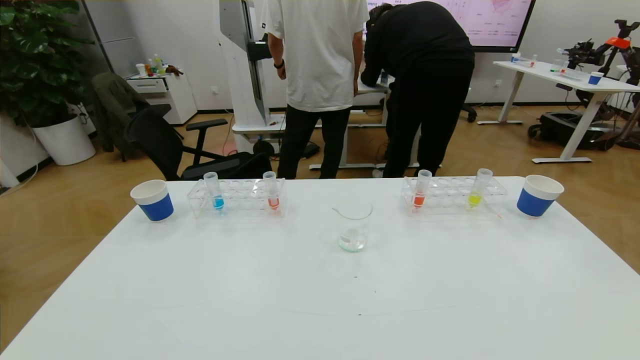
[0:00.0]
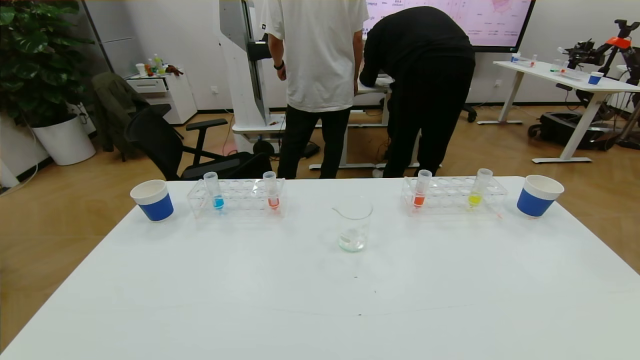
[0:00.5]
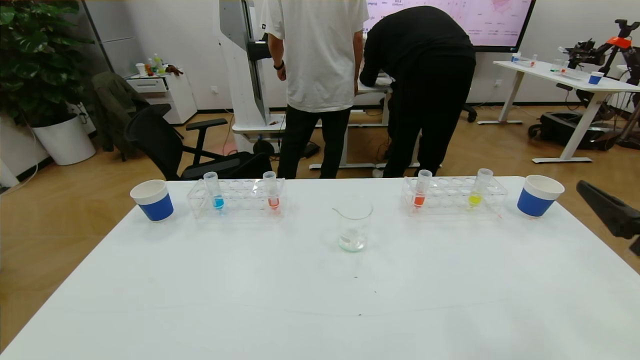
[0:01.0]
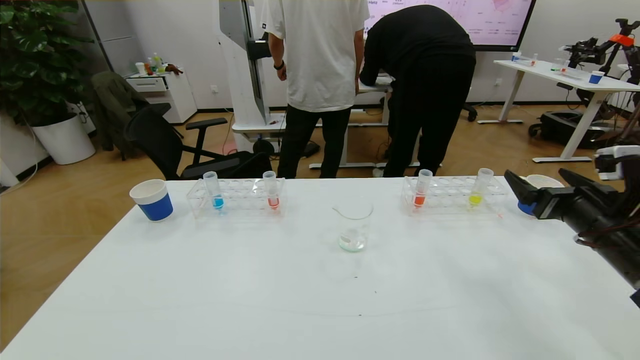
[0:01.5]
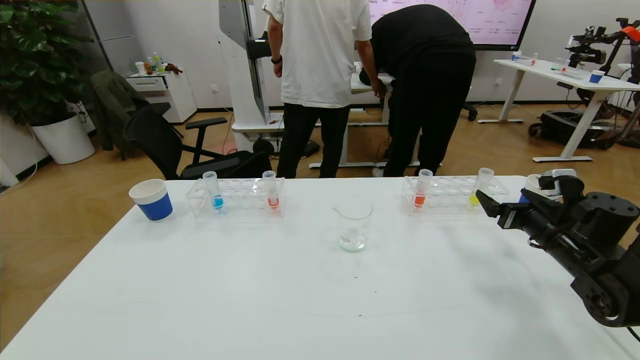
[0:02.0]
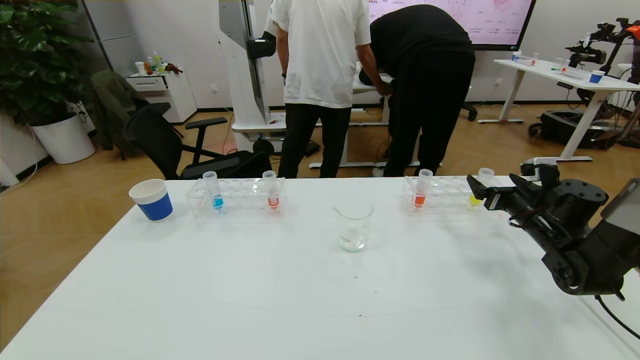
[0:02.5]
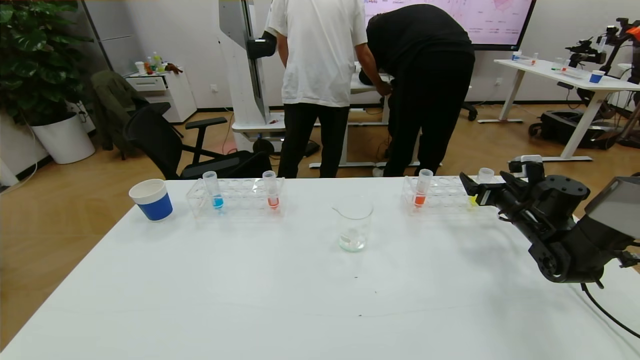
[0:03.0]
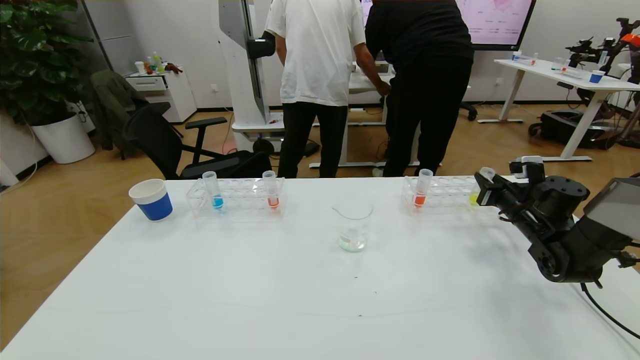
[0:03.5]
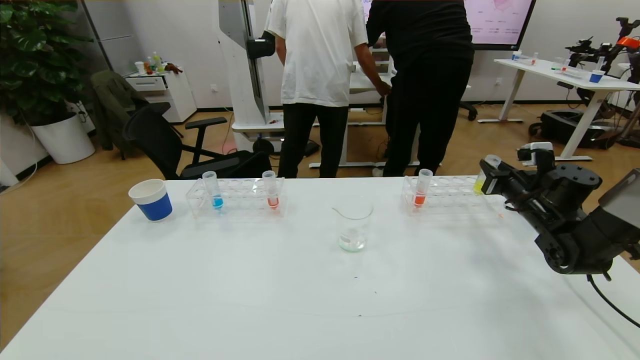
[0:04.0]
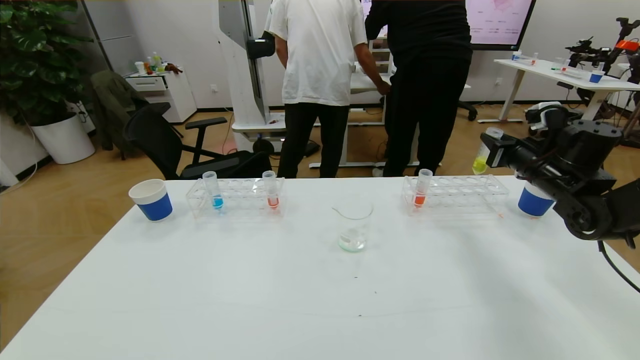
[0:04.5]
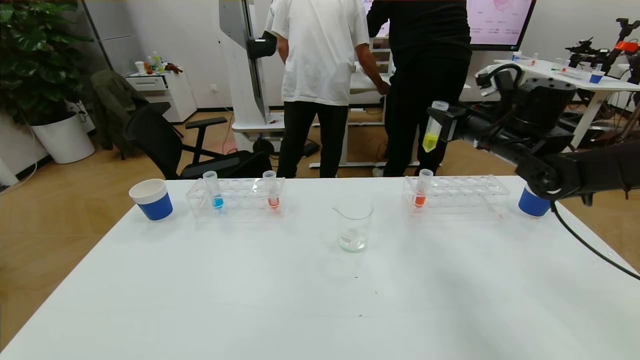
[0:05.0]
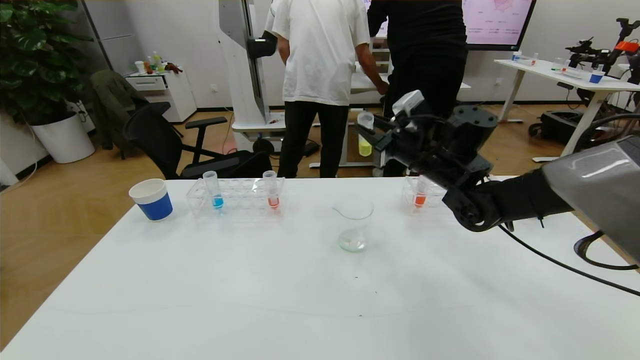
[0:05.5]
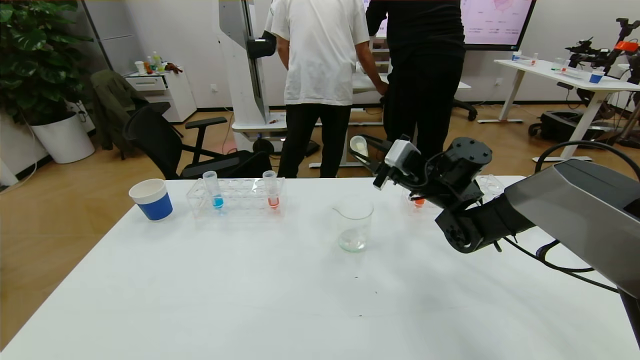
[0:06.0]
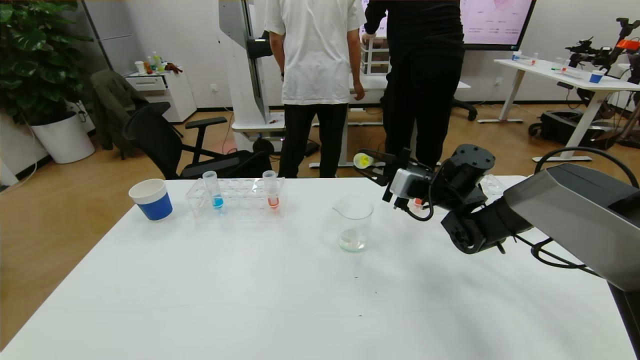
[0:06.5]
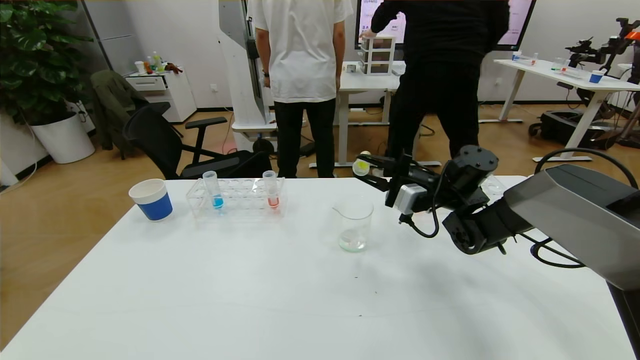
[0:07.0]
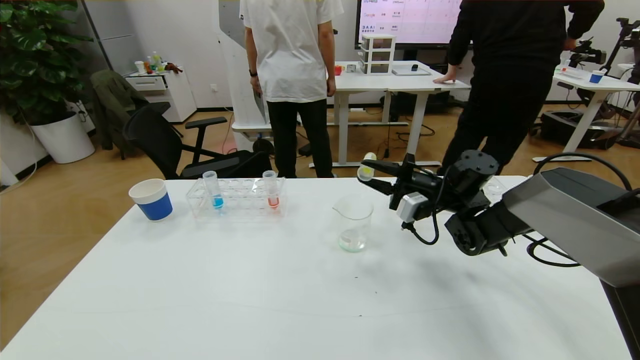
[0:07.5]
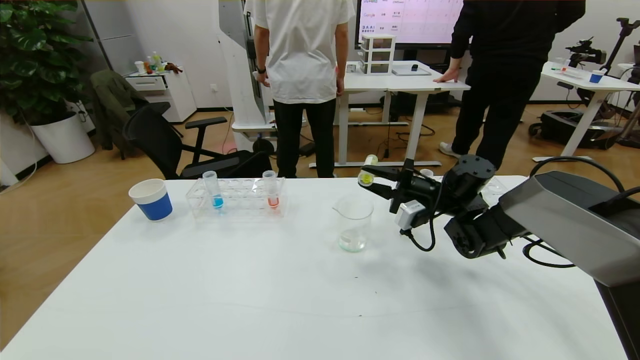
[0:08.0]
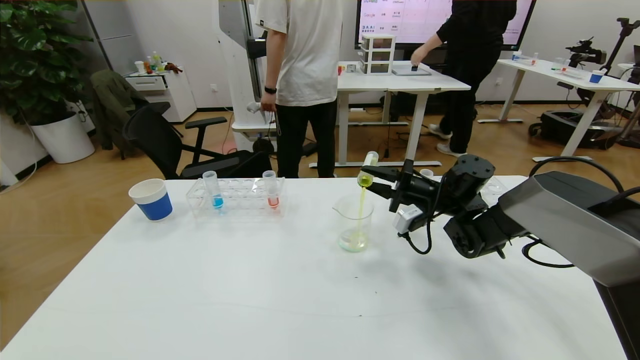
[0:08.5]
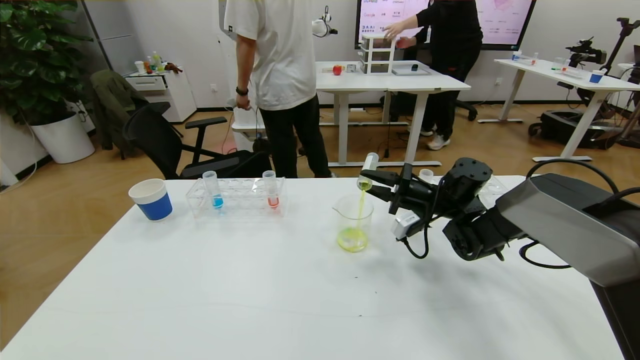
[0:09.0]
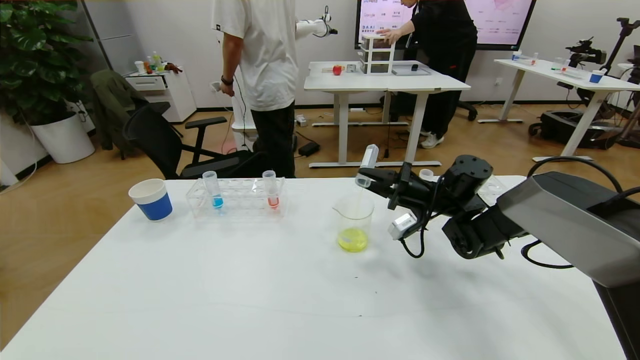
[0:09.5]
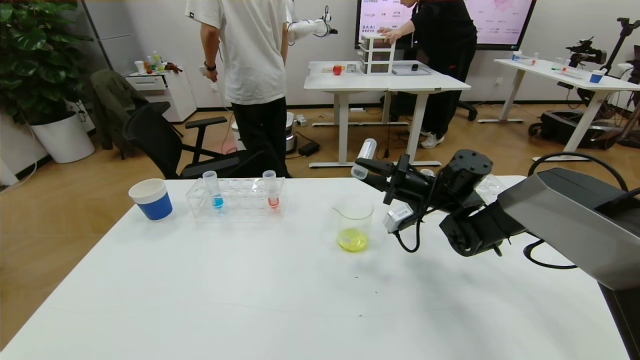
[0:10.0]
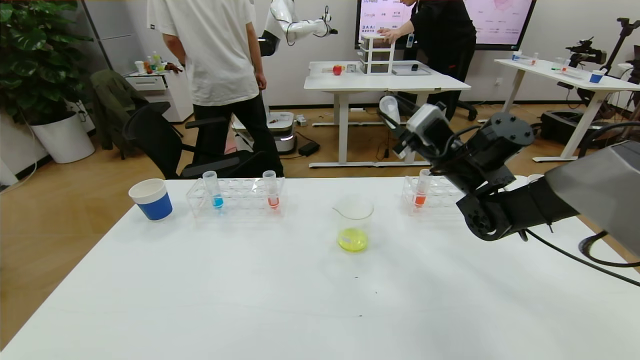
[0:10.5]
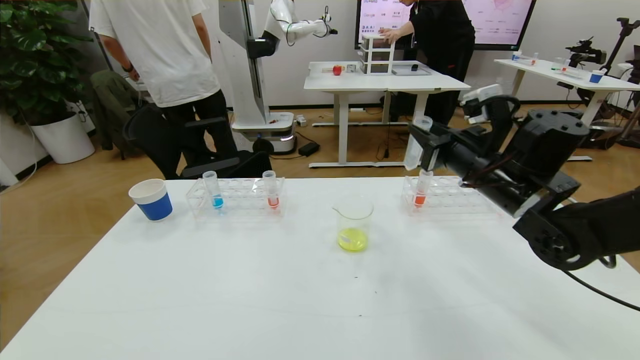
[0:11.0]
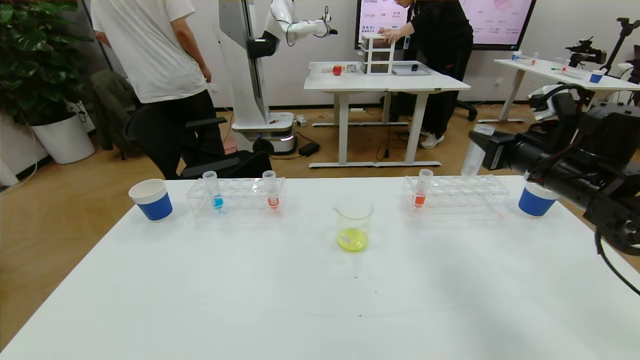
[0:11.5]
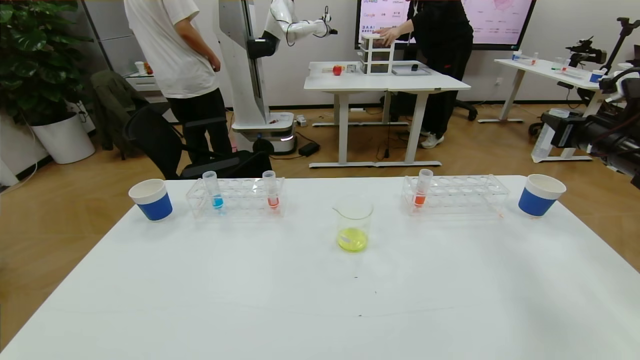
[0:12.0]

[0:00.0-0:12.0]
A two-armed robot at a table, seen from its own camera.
Task of the whole recording: pick up the test tube with yellow pigment and the test tube with blue pigment by grippers and pour them into the beaker.
0:00.0 to 0:02.0: The right gripper travels forward by roughly 35 cm.
0:02.0 to 0:04.0: The right gripper travels forward by roughly 10 cm, and closes.
0:04.0 to 0:06.0: The right gripper is displaced to the left by roughly 20 cm.
0:06.0 to 0:08.0: The right gripper shifts by about 5 cm.
0:10.0 to 0:12.0: The right gripper moves to the right and upward, some 25 cm.

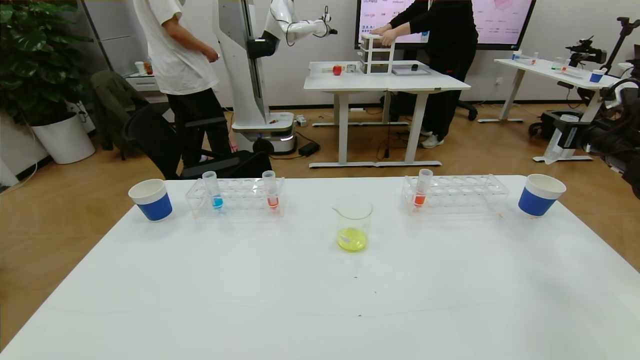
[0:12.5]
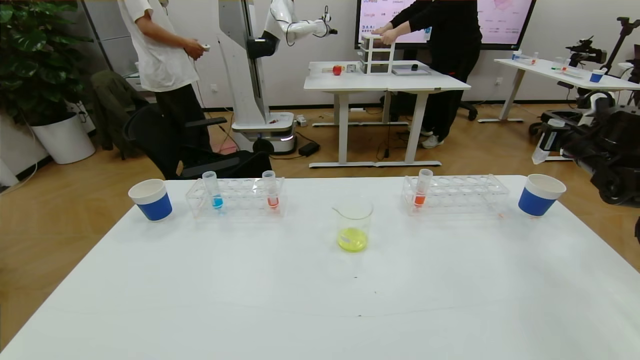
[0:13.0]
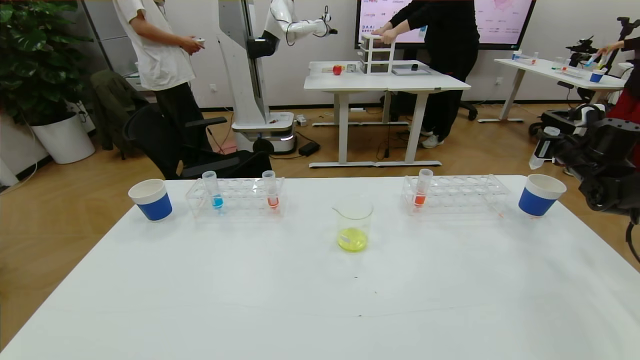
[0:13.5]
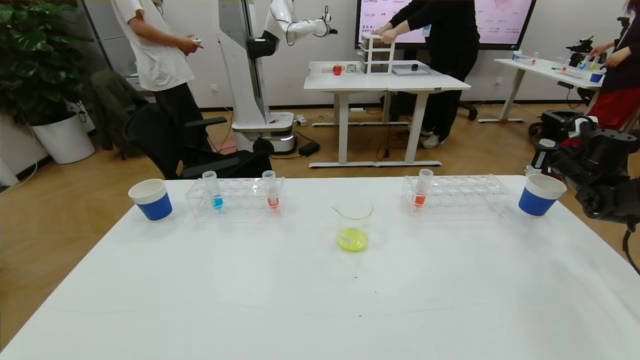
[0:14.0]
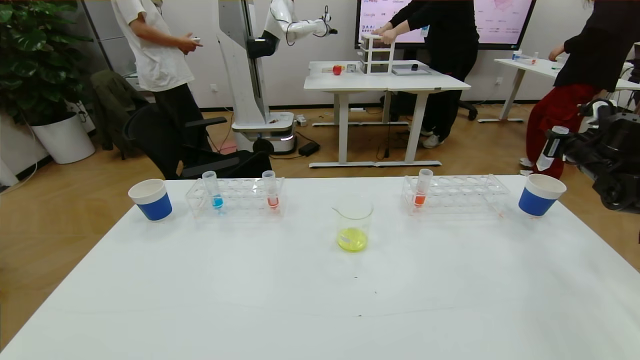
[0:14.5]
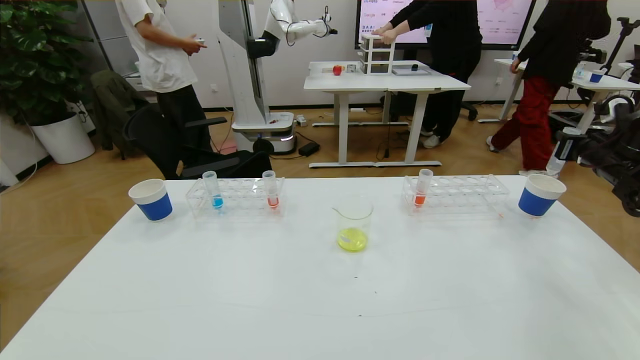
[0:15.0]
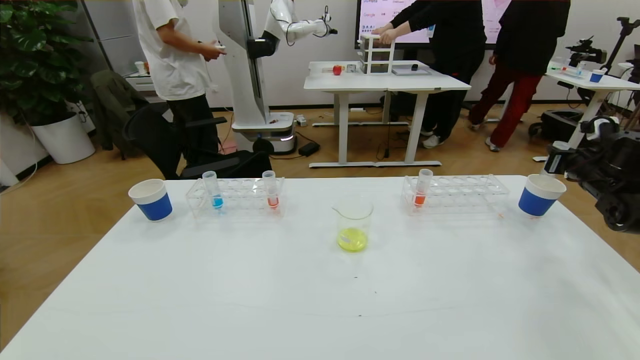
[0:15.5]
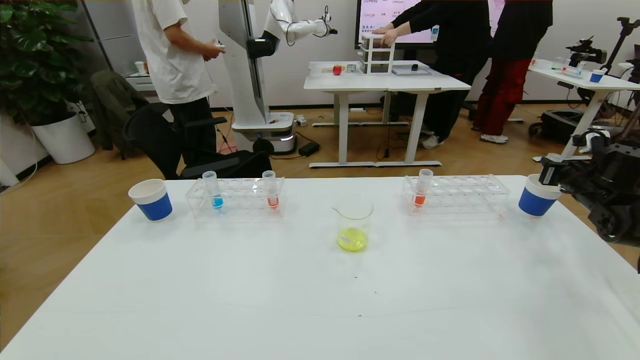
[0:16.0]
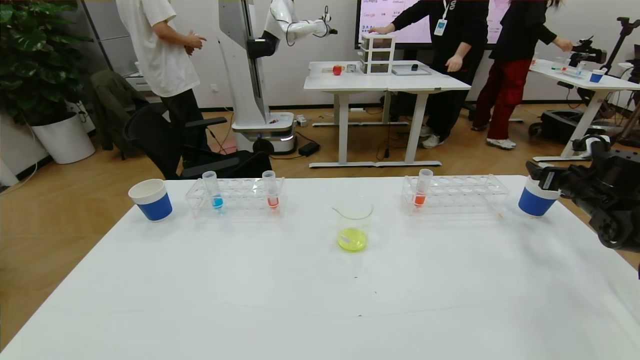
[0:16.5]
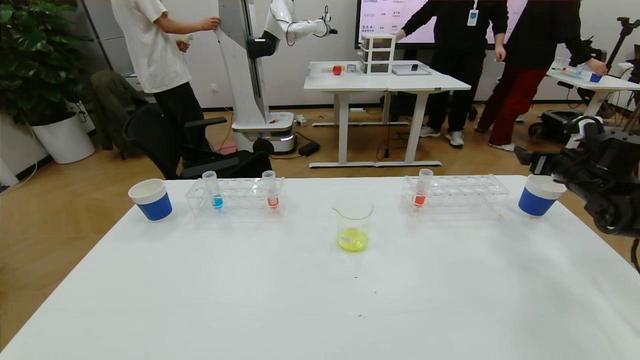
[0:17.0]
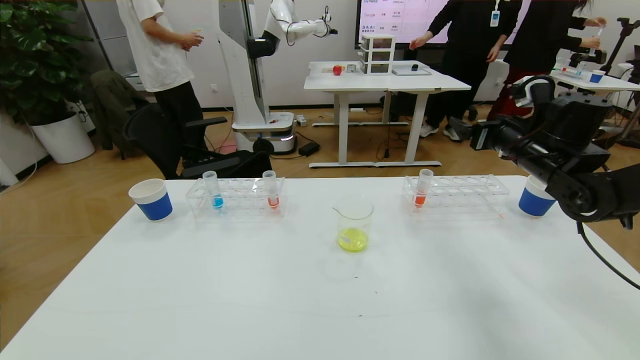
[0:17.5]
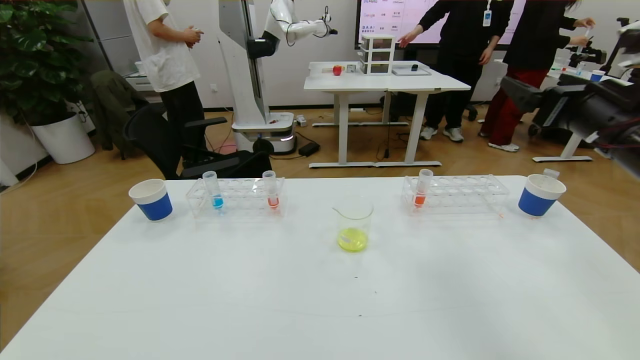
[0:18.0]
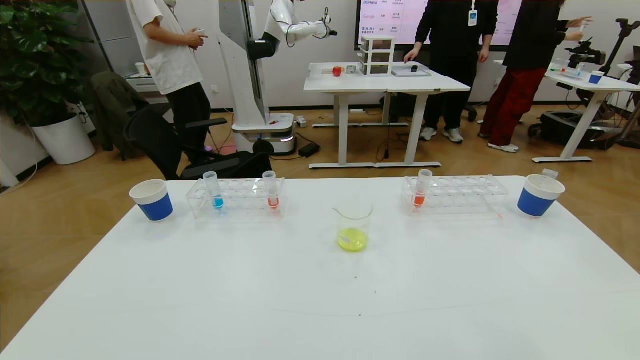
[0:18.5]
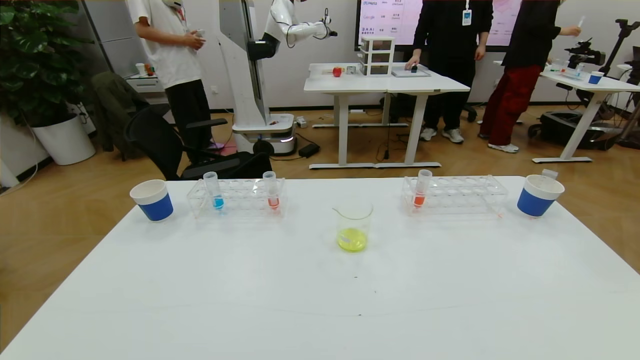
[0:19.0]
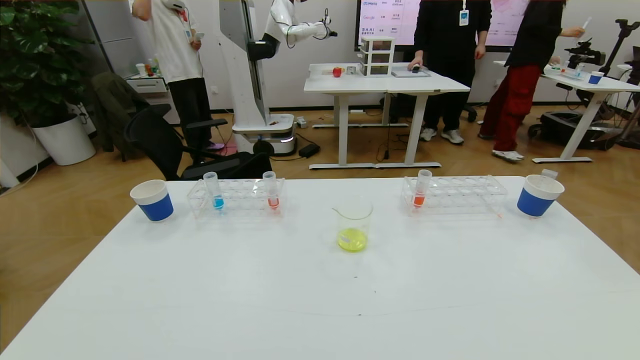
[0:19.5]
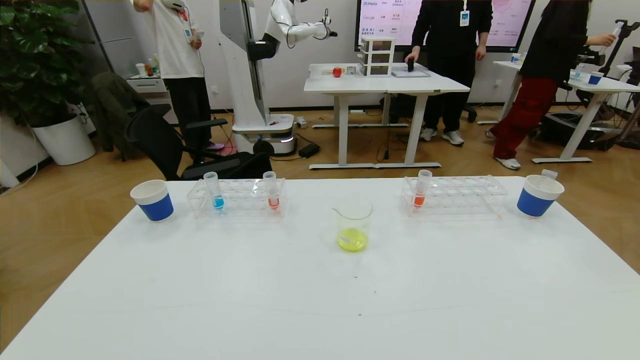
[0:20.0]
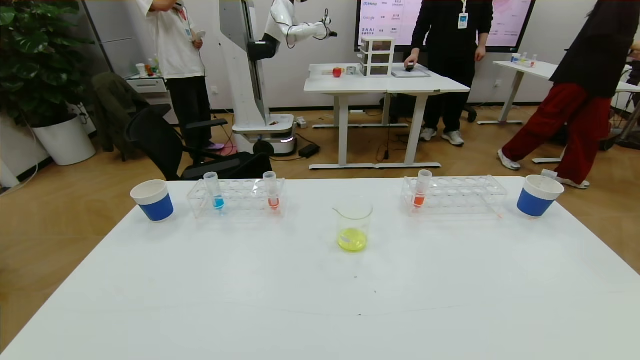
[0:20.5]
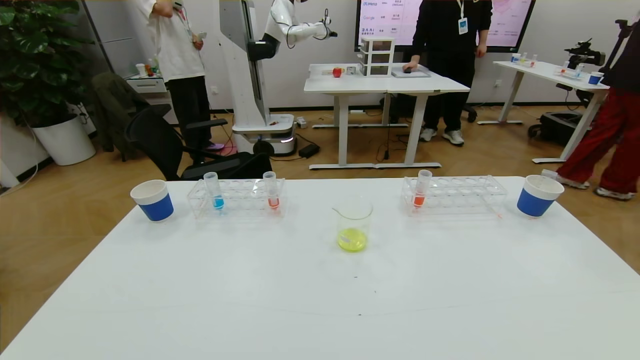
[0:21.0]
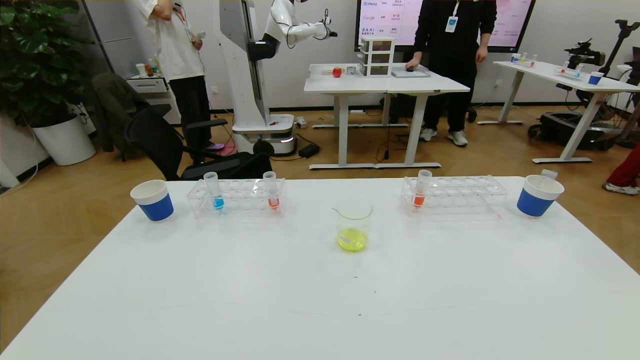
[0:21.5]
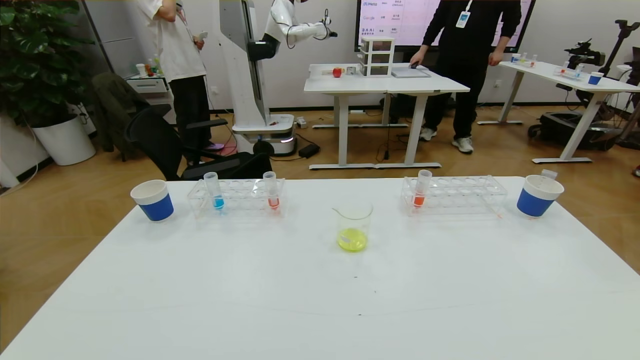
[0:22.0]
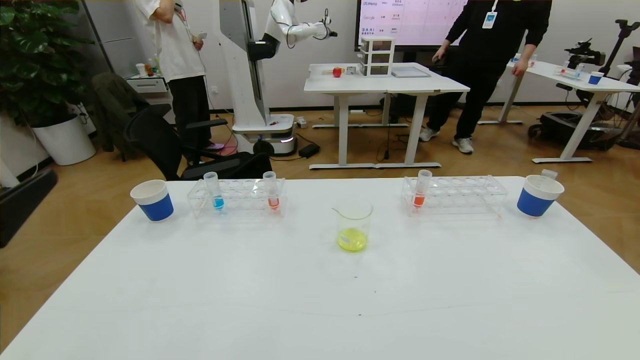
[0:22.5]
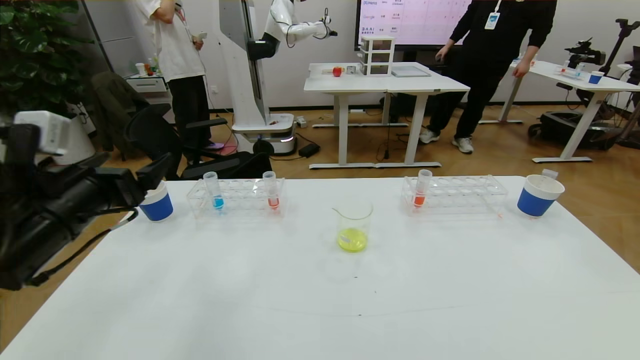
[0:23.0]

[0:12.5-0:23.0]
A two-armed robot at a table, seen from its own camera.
Task of the whole recording: pick up the test tube with yellow pigment and the test tube with blue pigment by grippers and pour them into the beaker.
Step, 0:12.5 to 0:20.5: Pour the yellow reagent into the graduated cylinder and place the test tube into the paper cup.
0:14.5 to 0:16.5: The right gripper is displaced downward by about 5 cm, and opens up.
0:16.5 to 0:19.0: The right gripper is displaced backward by approximately 40 cm.
0:19.0 to 0:21.0: The right gripper goes approximately 15 cm downward.
0:21.0 to 0:23.0: The left gripper heads forward and upward, covering some 30 cm.
